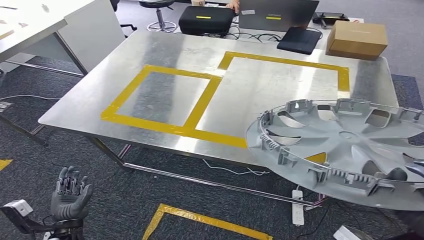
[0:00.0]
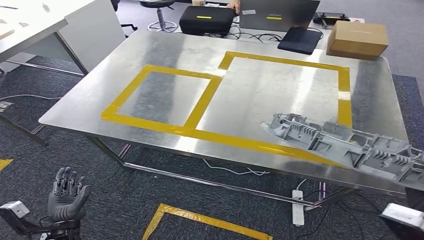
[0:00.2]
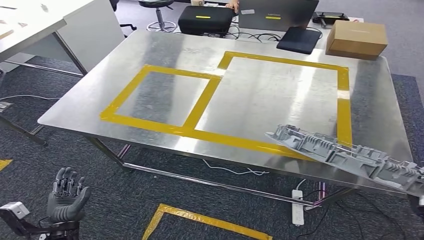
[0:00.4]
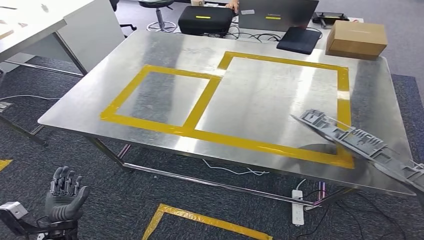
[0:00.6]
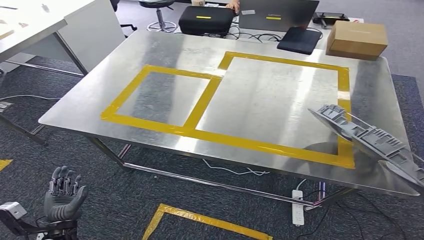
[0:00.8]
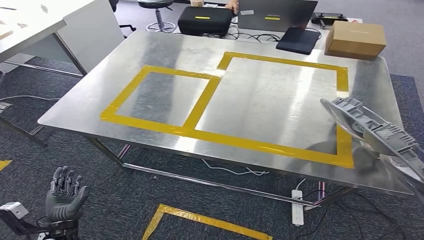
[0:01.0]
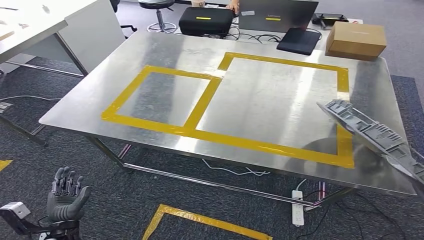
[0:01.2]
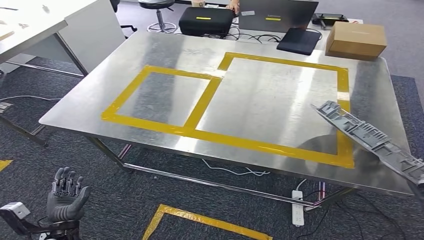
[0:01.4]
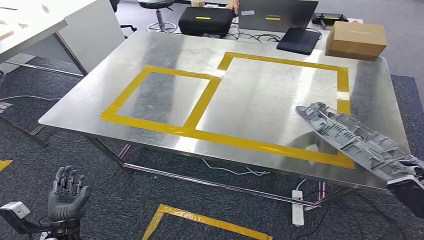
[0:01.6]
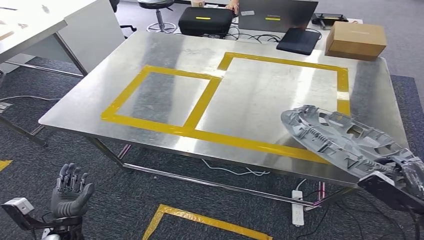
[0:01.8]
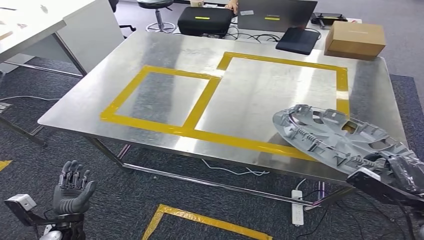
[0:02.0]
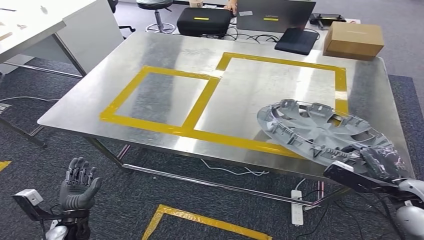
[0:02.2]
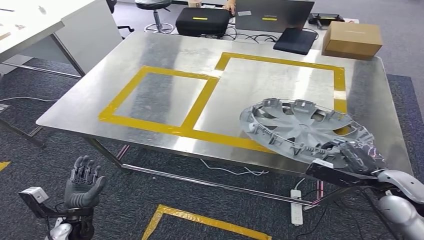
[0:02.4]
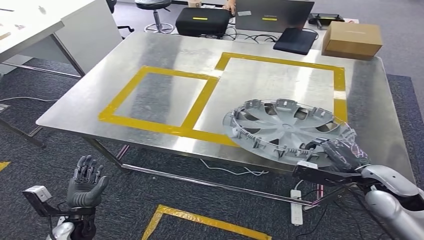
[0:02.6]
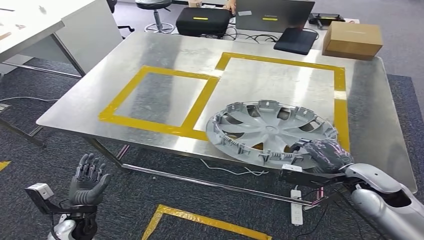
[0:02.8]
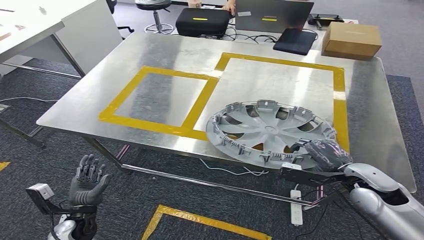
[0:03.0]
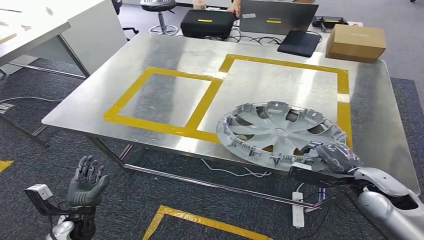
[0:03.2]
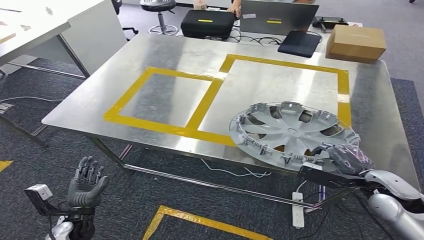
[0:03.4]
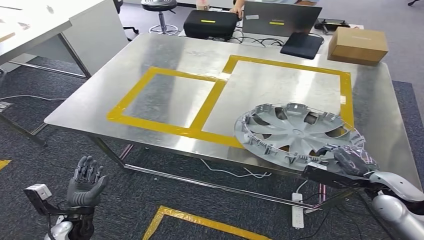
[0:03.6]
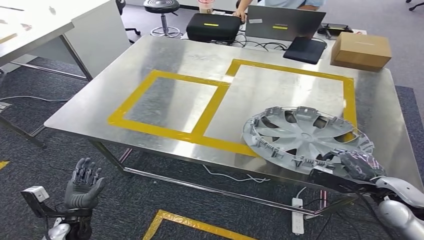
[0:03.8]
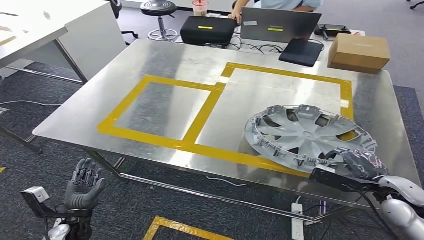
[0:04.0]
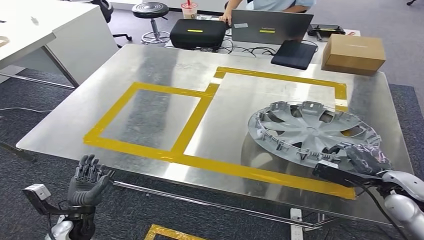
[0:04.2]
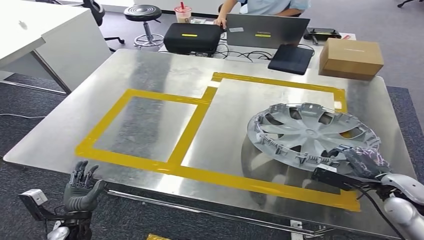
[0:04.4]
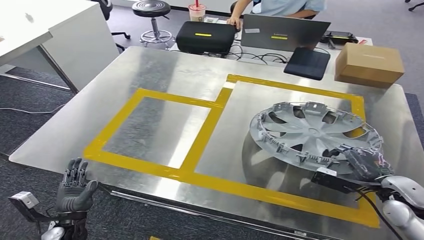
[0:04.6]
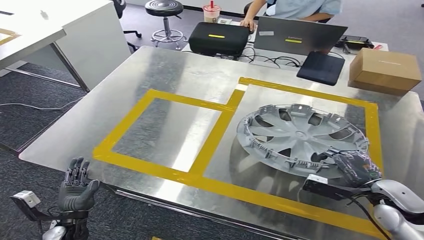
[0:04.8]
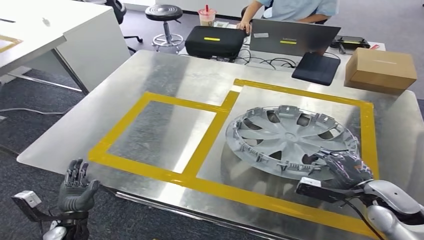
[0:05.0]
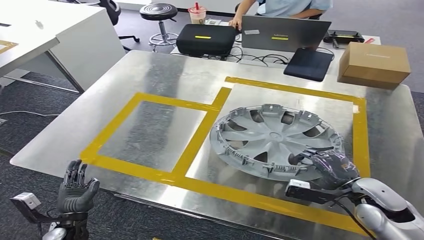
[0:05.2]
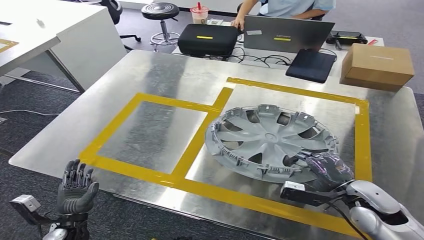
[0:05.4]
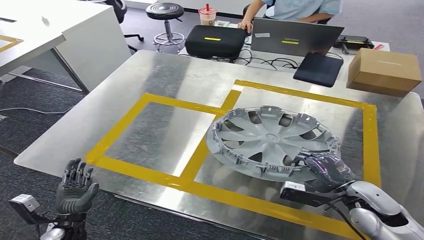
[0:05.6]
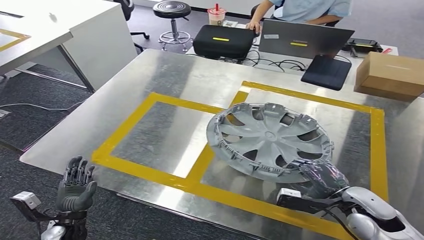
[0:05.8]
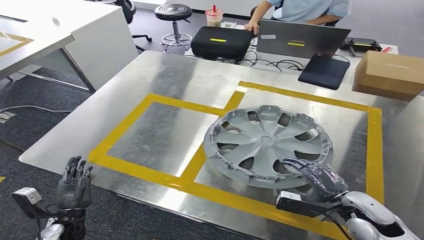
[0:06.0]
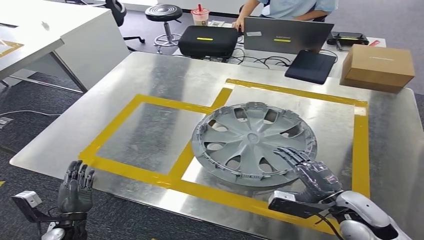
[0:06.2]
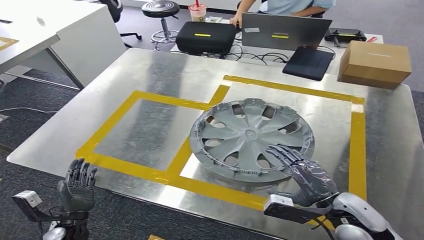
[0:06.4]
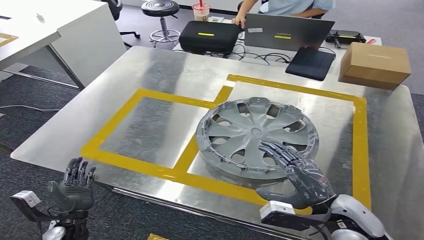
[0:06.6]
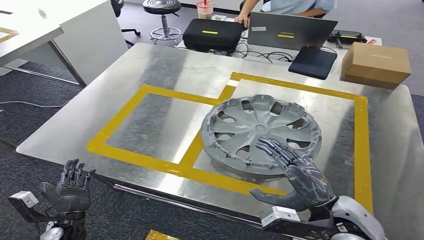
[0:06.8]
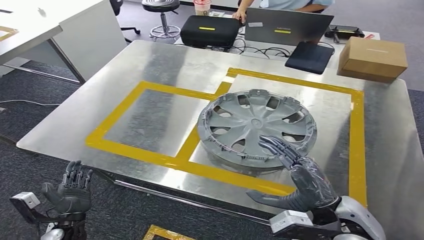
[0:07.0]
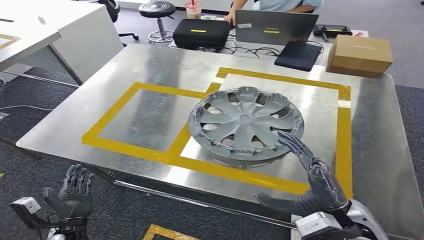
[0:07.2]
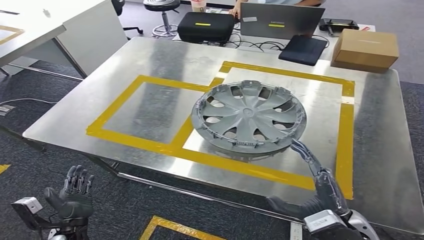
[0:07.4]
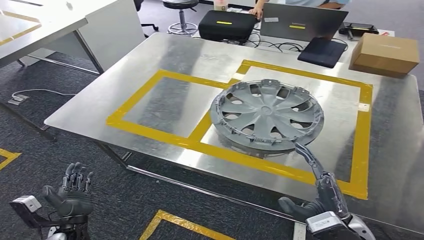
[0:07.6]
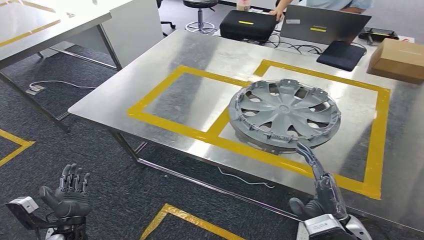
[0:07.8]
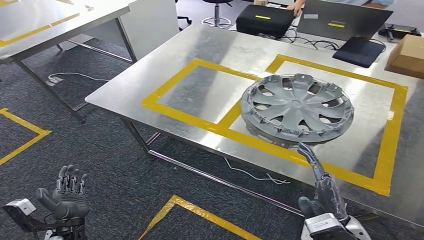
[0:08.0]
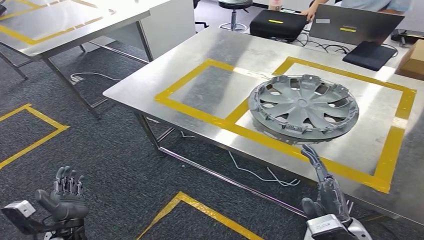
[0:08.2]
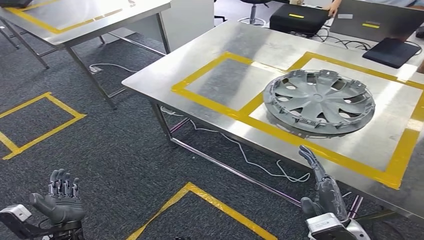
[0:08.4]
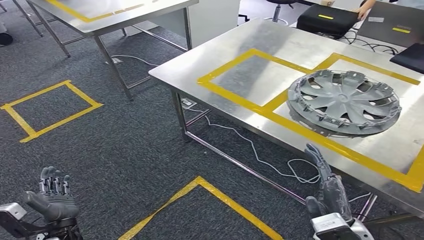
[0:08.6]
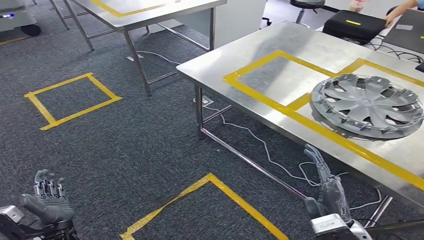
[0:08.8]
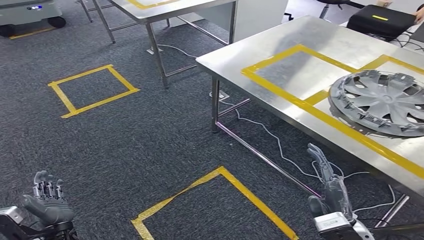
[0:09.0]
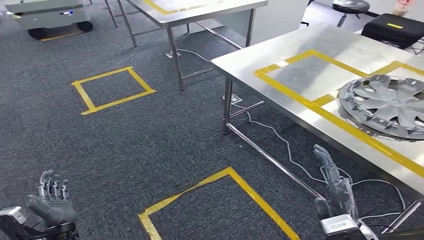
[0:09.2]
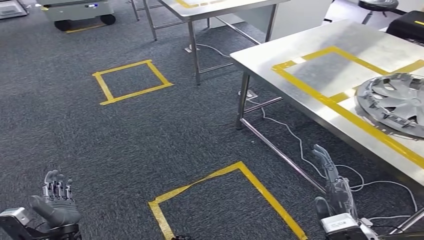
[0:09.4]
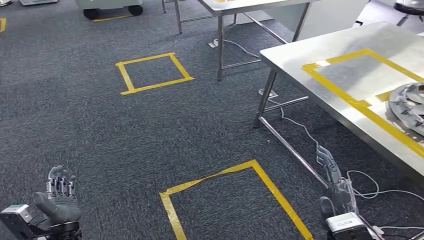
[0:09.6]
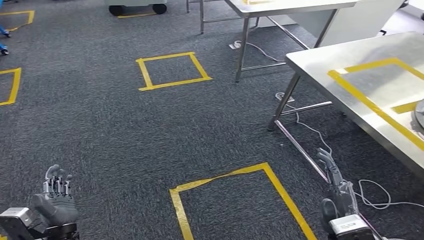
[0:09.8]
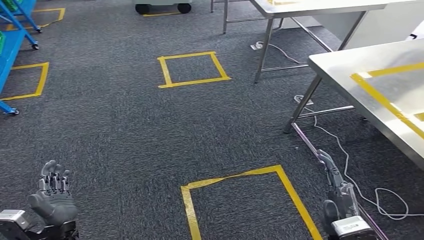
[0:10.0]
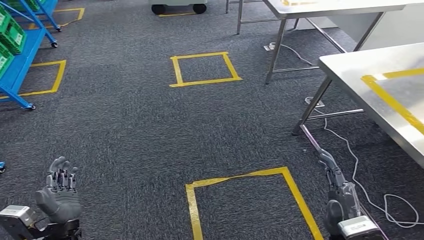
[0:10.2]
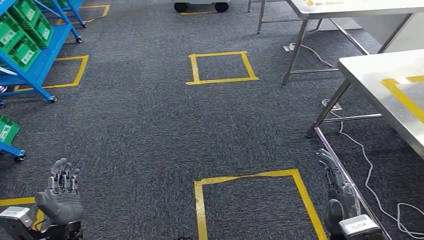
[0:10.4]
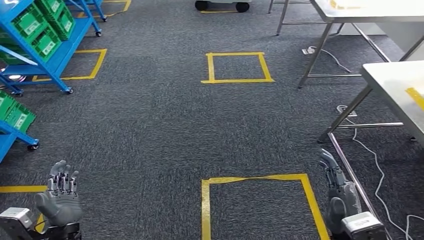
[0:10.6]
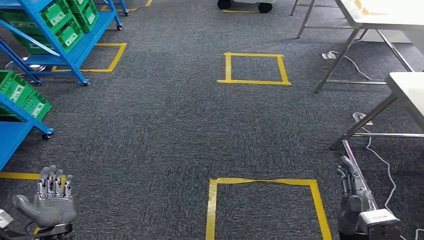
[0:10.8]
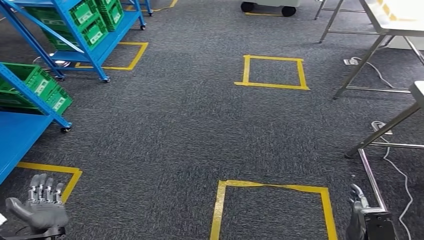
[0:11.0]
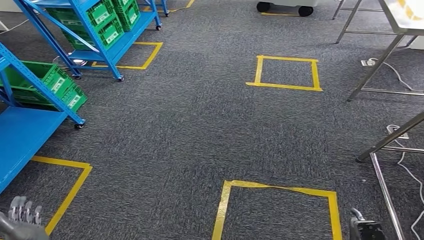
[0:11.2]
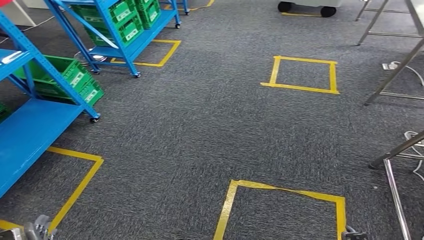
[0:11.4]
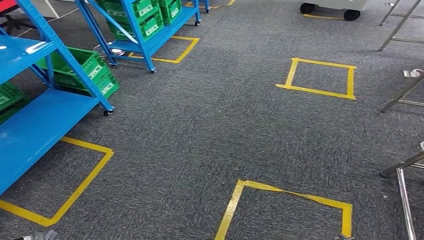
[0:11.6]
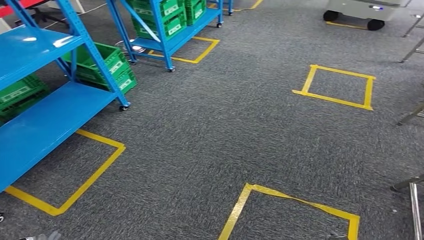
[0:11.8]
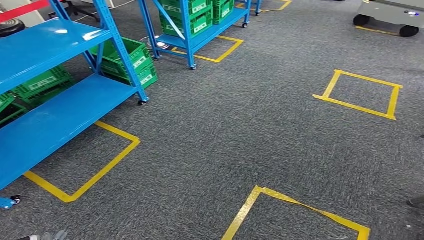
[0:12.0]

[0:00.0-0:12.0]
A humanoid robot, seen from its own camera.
Step, 0:00.0 to 0:06.8: Insert the small component into the corresponding slot on the workbench.
0:00.0 to 0:01.6: The right hand goes some 10 cm to the right and downward.

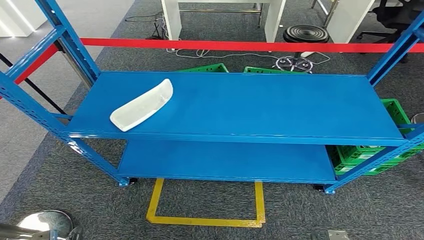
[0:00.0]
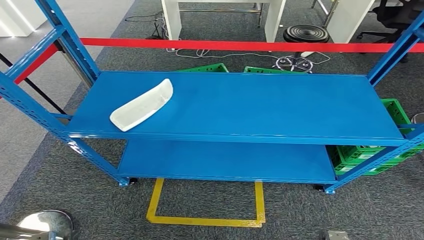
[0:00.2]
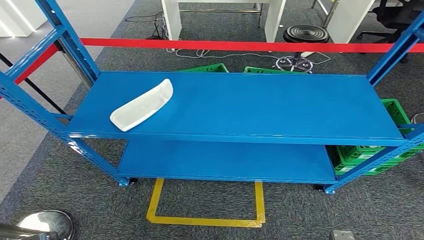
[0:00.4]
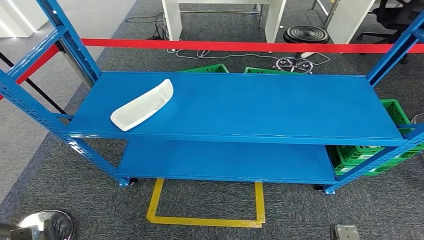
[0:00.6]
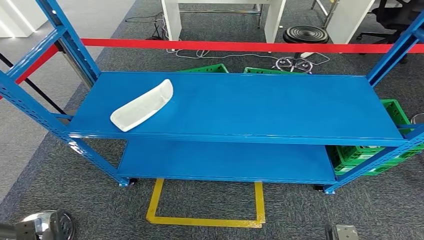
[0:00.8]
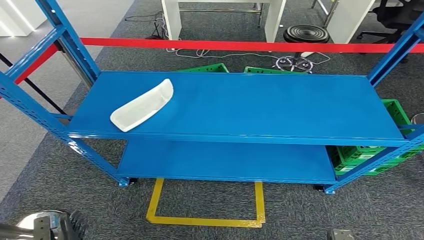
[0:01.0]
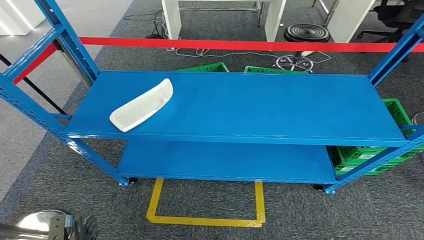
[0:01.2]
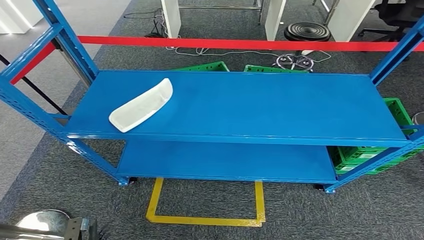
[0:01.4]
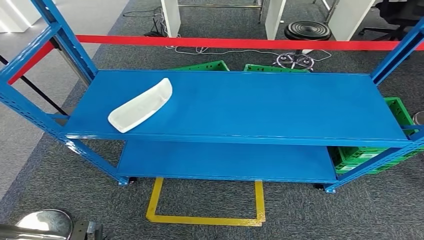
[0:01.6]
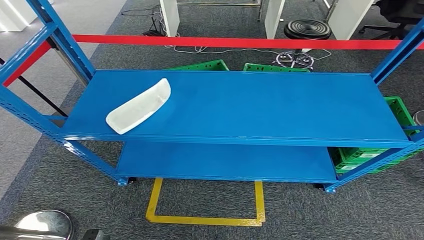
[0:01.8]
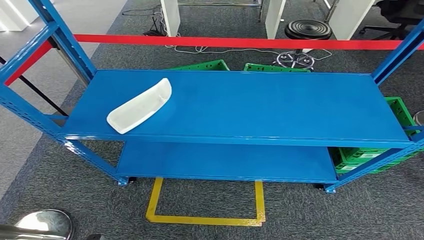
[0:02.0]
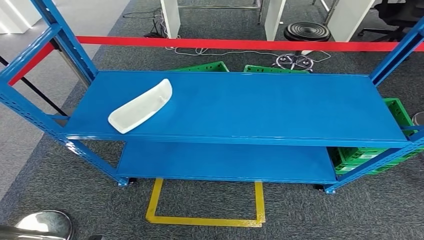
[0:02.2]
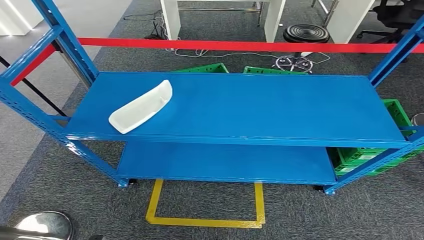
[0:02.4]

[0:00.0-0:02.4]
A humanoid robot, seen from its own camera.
Step, 0:00.0 to 0:02.2: Return to the initial position at the workbench.
0:00.0 to 0:01.2: The left hand ends up roughly 5 cm from where it was.
0:01.2 to 0:02.4: The two hands go approximately 5 cm backward.
